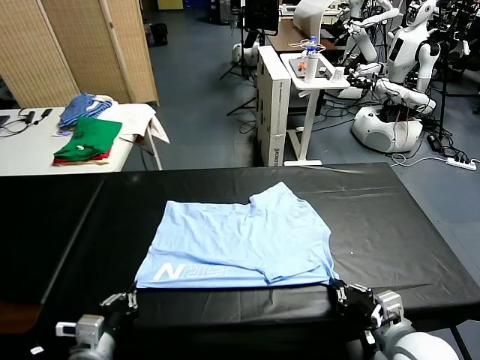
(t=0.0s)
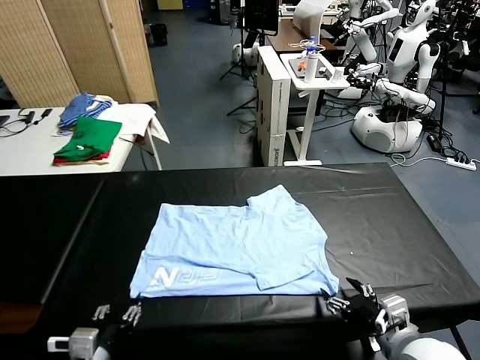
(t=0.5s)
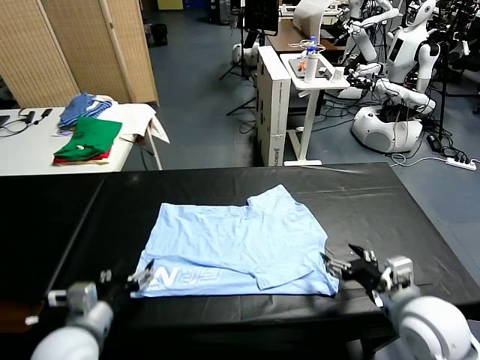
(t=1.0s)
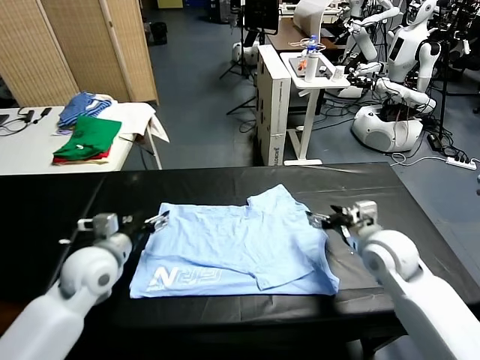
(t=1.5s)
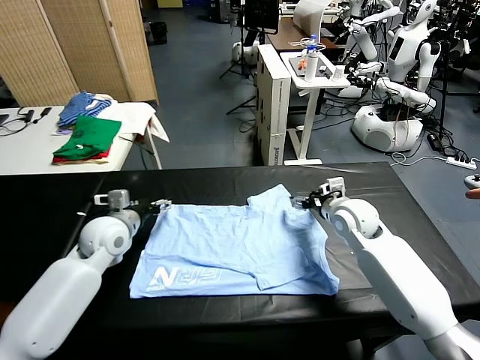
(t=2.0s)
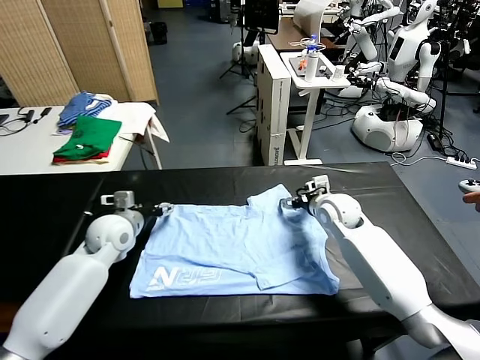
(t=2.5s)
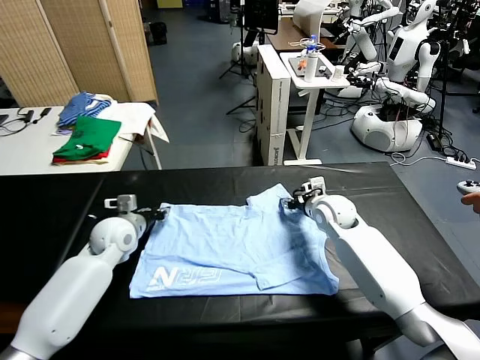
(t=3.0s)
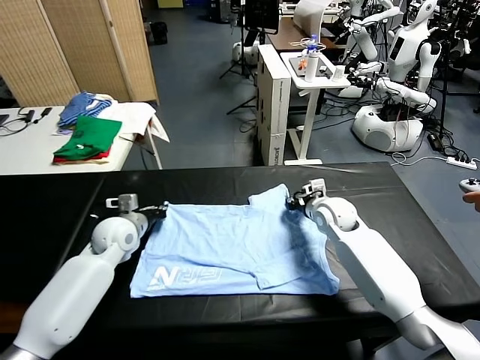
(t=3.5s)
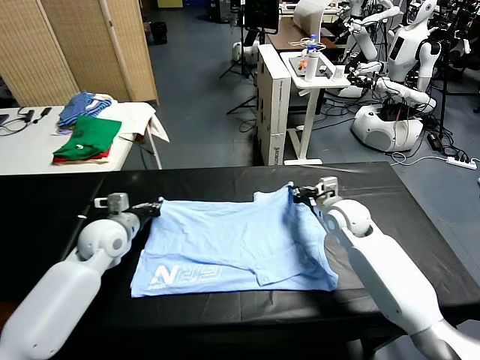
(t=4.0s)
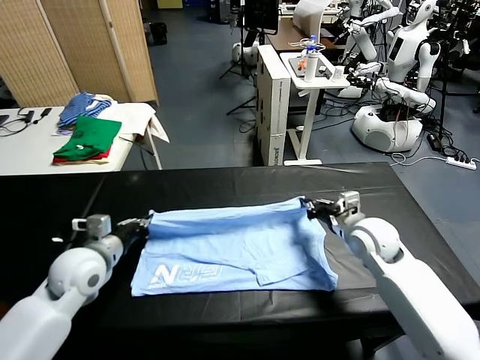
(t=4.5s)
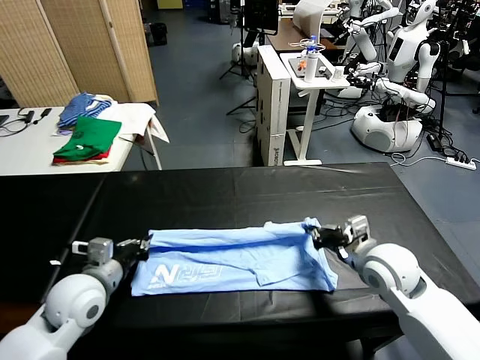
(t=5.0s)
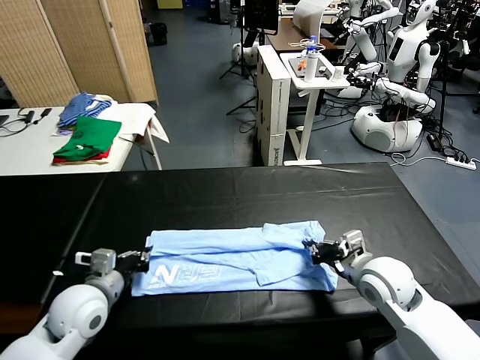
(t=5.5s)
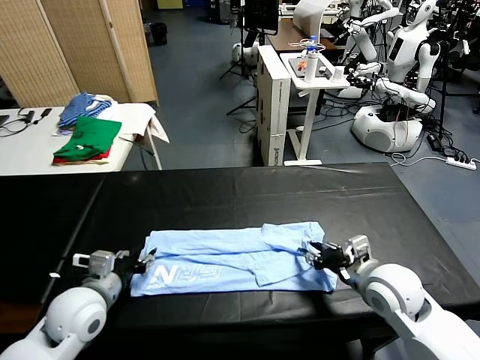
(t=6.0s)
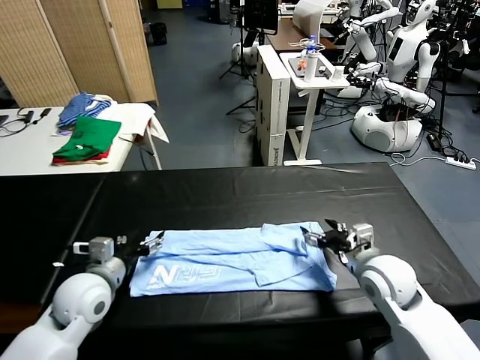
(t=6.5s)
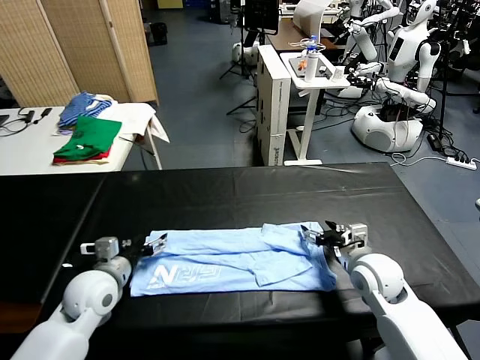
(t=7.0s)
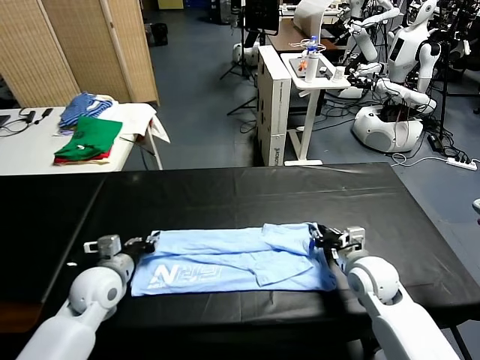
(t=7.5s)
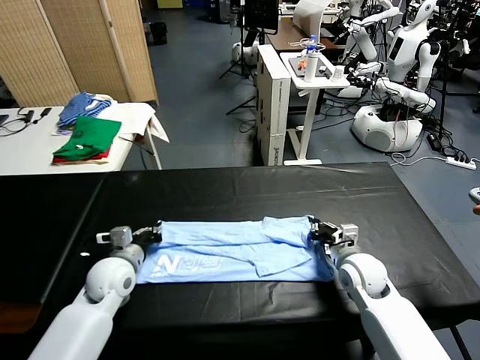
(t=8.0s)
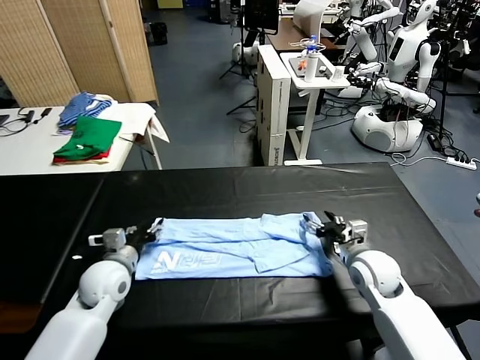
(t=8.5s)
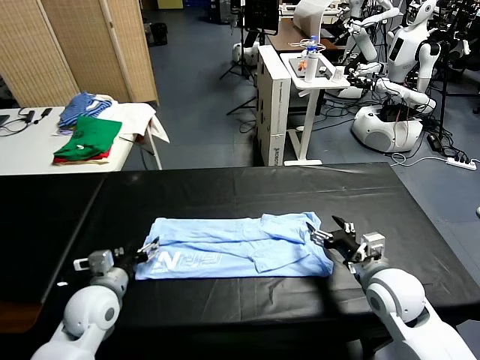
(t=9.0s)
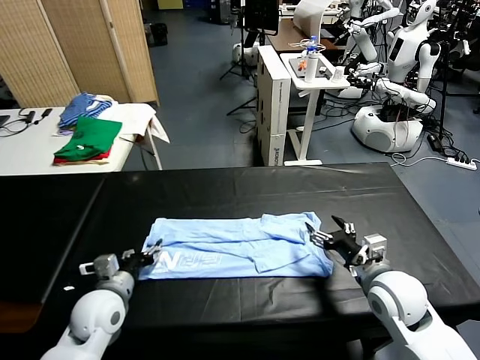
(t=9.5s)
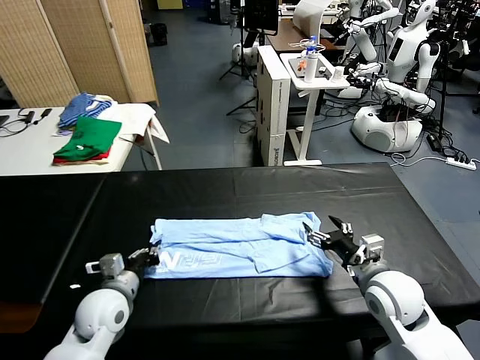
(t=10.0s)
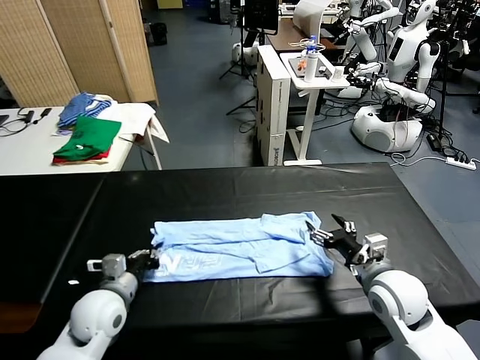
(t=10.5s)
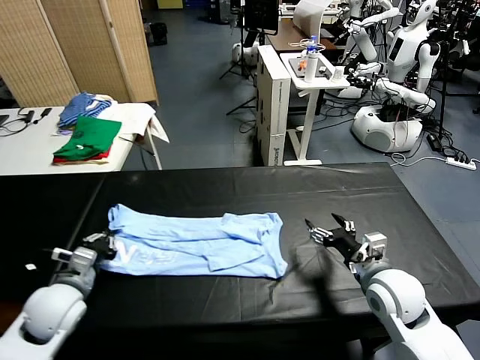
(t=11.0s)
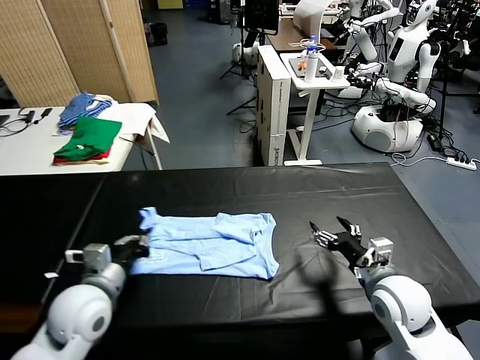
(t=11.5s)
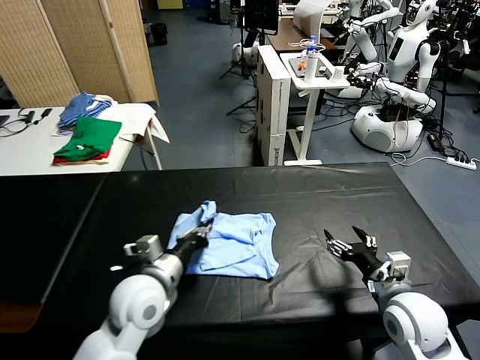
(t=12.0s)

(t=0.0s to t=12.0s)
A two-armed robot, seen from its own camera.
Task of the whole recording: fold and organize the clothes.
Step, t=0.5s - t=3.5s: use both grippers simultaneously to clamp the upper edge of the clothing fabric.
Step, t=4.0s - t=6.0s: use both grippers to drag the upper edge of the fabric backward and fold it over the lower edge.
Step, t=6.5s - t=10.5s: use the left gripper to clamp the left edge of the fabric.
t=0.0s - t=2.0s: Both grippers travel together forward, approximately 30 cm. The right gripper opens its fingers. The left gripper opens.
t=2.0s - t=4.0s: The left gripper closes its fingers; the right gripper closes up.
t=4.0s - t=6.0s: The two grippers go approximately 15 cm backward. The right gripper opens its fingers; the left gripper opens up.
t=6.0s - t=8.0s: The two grippers go roughly 10 cm forward and downward. The left gripper closes. The right gripper closes.
t=8.0s - t=10.0s: The right gripper shifts some 10 cm backward and upward, and opens up, while the left gripper goes approximately 5 cm backward, and opens, then closes again.
t=10.0s - t=12.0s: The left gripper is displaced to the right and upward by about 10 cm; the right gripper moves approximately 5 cm.

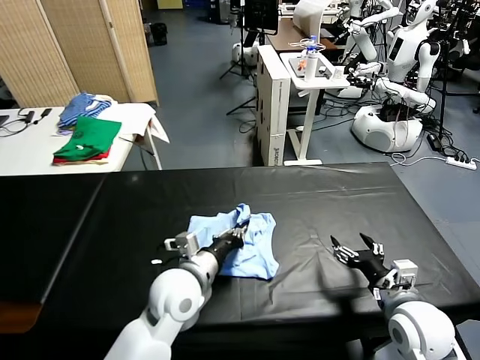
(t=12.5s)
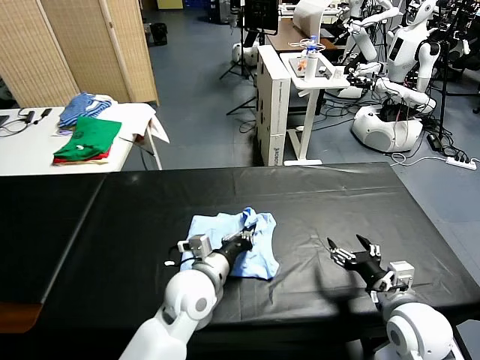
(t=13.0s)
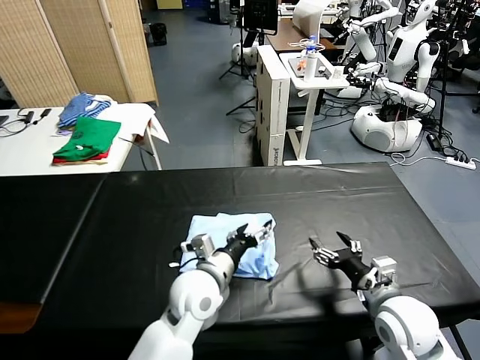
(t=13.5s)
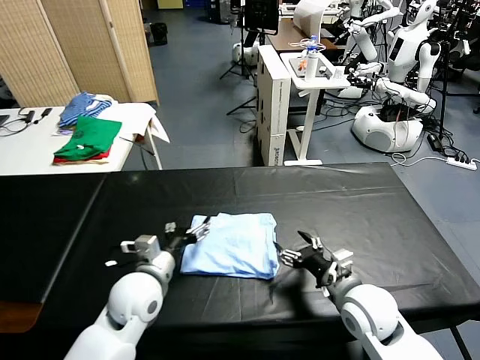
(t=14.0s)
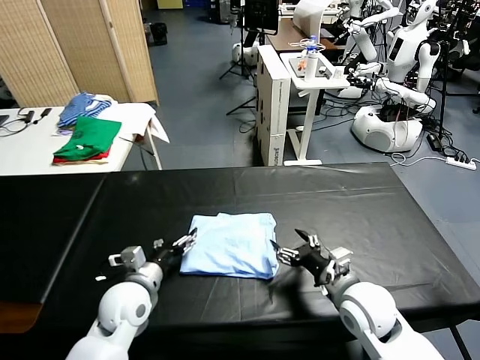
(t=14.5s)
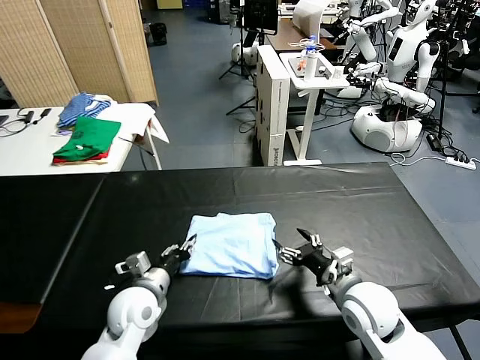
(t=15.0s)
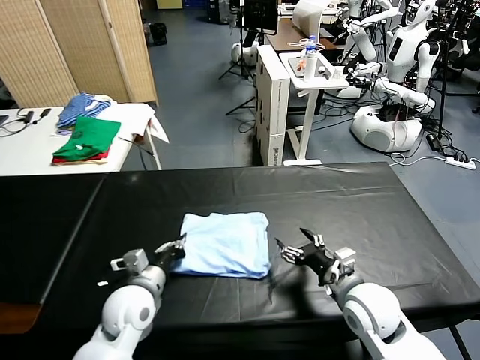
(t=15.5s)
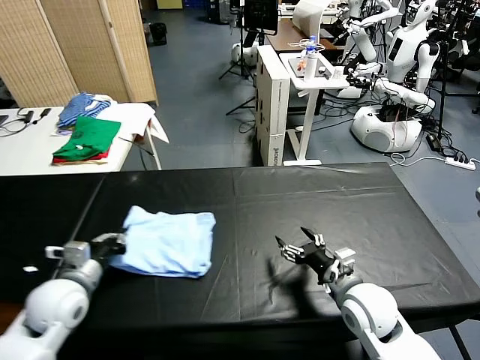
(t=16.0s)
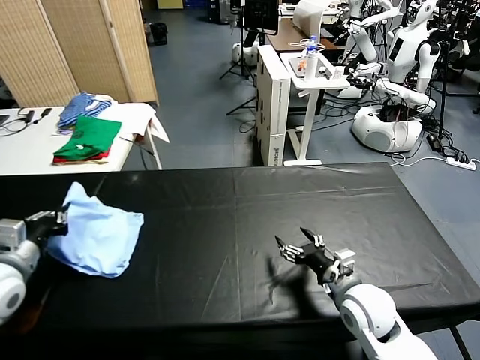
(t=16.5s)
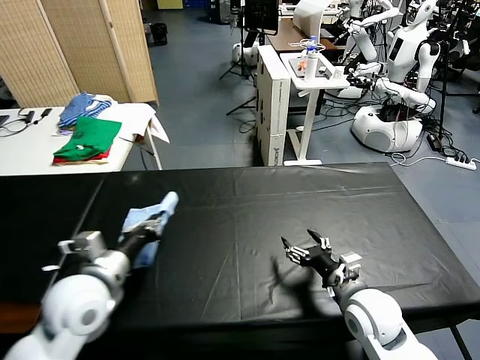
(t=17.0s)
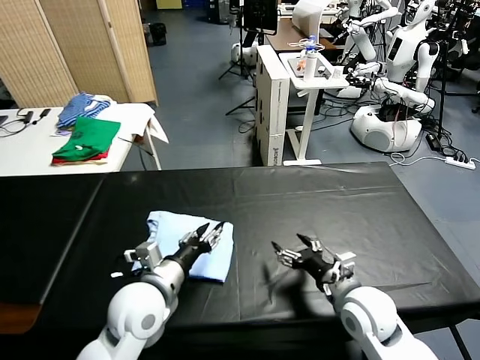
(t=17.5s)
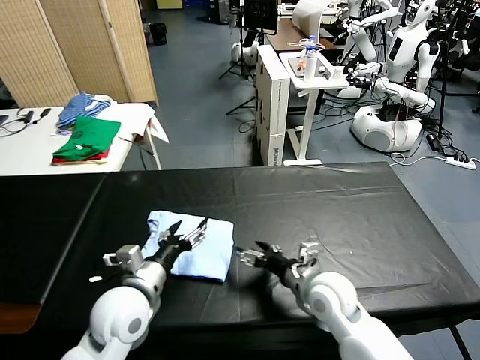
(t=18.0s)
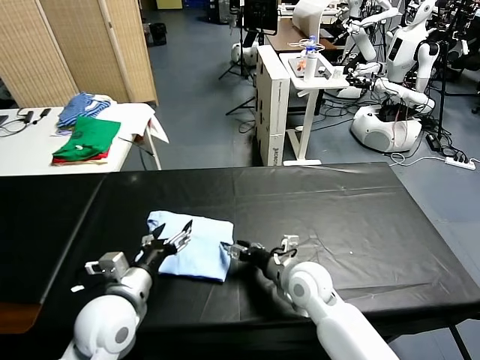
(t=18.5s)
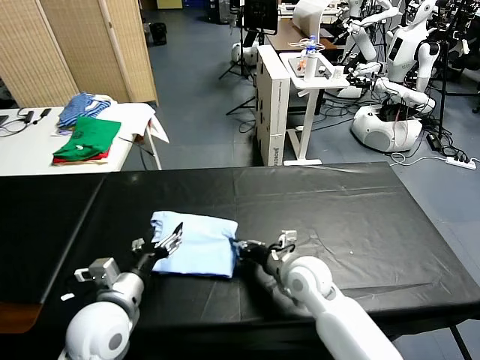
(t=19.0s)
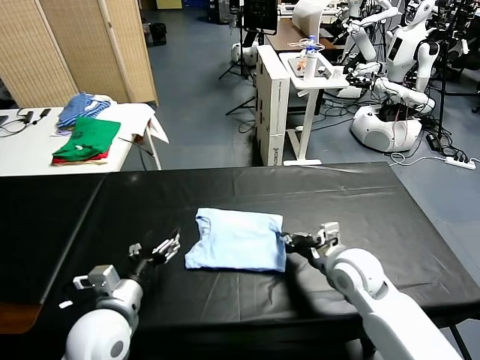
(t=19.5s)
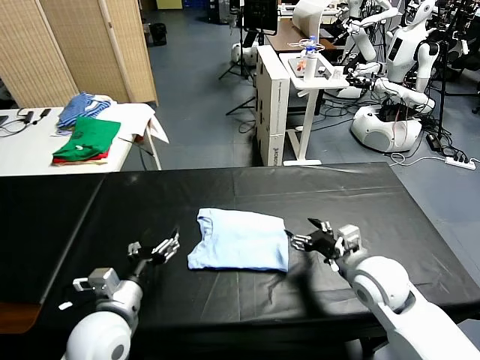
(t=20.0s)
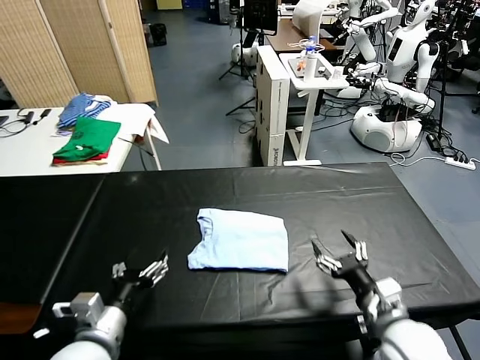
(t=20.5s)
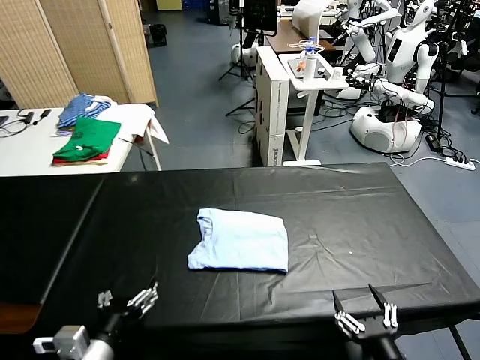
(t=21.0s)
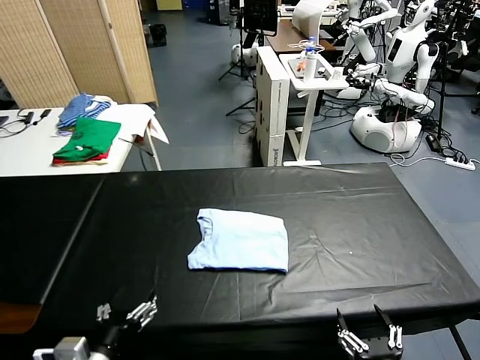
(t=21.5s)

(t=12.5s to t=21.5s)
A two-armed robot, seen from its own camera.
Task of the whole recording: fold and organize the clothes.
Step, t=14.0s - t=17.5s: Flip the folded clothes over with left gripper.
Step, t=18.0s - t=19.5s: Drag the clothes to the center of the table.
t=12.5s - t=14.5s: The right gripper travels to the left by some 10 cm. Meanwhile the left gripper heads to the left and downward, covering about 15 cm, and opens.
t=14.5s - t=17.0s: The left gripper is displaced upward by roughly 10 cm, reaches some 20 cm to the left, then returns, and closes its fingers.
t=17.0s - t=19.5s: The right gripper goes about 5 cm forward, goes to the left and returns, roughly 10 cm each way, and closes its fingers. Meanwhile the left gripper is displaced downward by some 5 cm, and opens up.
t=19.5s - t=21.5s: The right gripper goes some 30 cm backward, and opens. Meanwhile the left gripper goes roughly 10 cm backward.

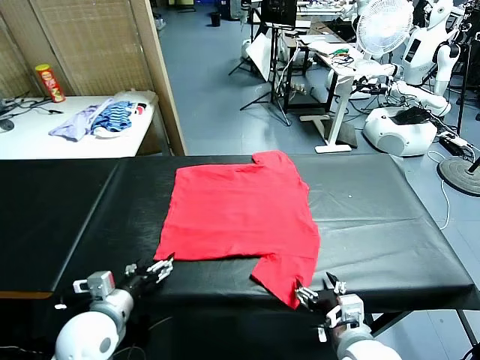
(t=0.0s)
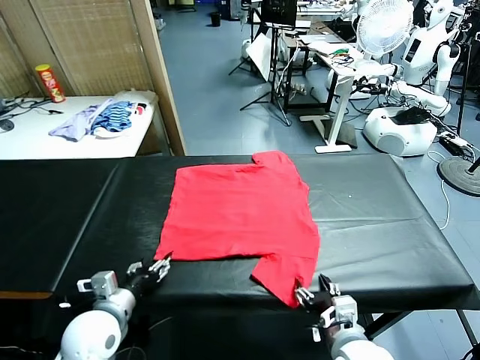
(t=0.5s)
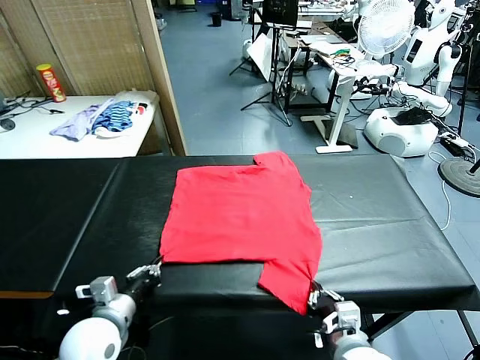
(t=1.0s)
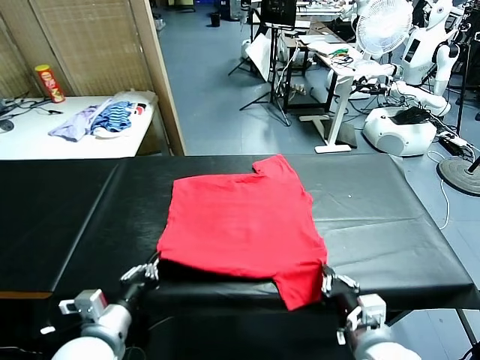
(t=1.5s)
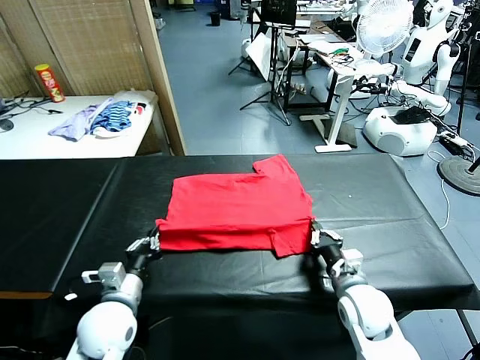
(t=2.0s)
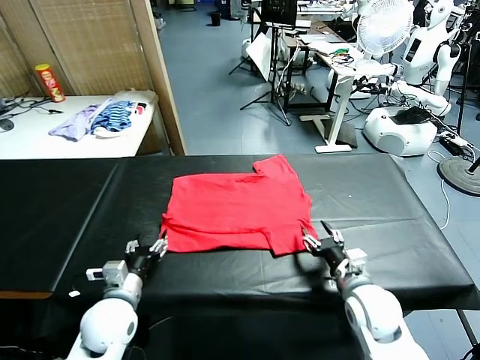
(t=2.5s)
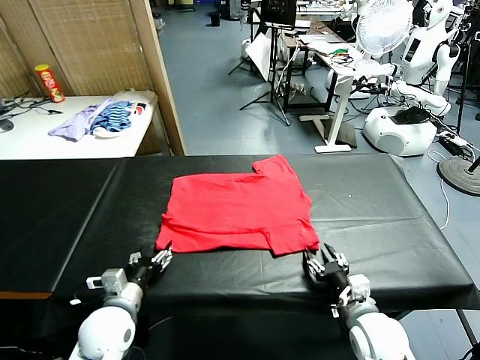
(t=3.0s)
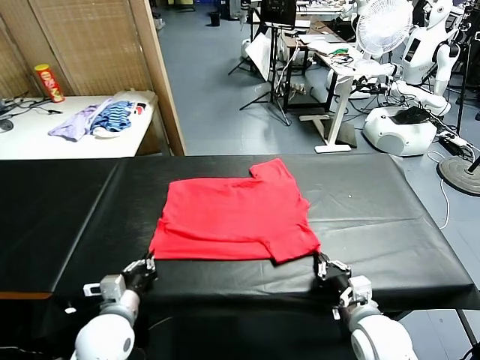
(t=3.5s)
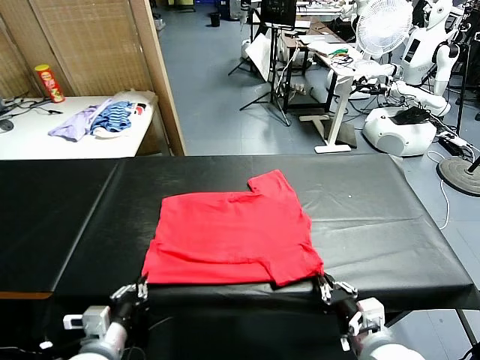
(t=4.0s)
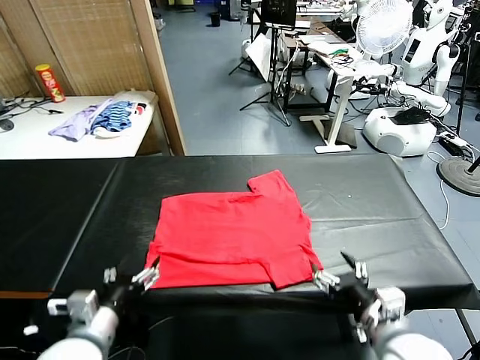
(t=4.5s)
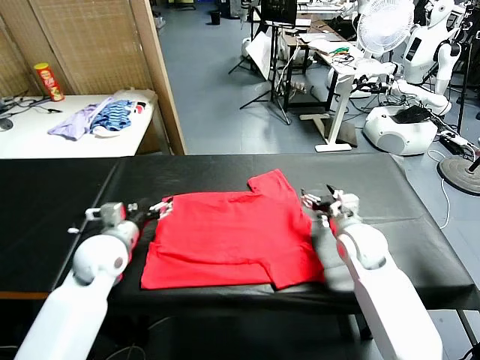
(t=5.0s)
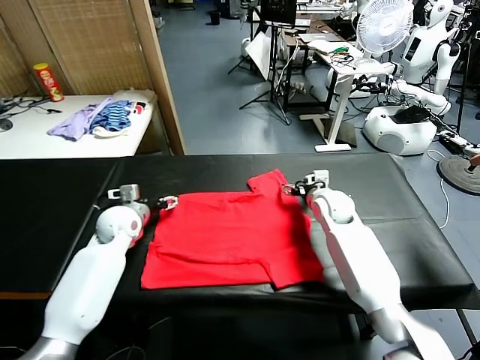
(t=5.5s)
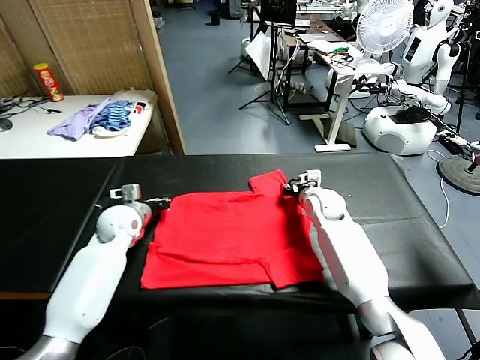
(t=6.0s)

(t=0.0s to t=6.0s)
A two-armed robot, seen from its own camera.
Task of the whole recording: fold and organize the clothes.
Step, t=0.0s - t=1.0s: use both grippers simultaneously to clamp the lower edge of the clothing fabric.
Step, t=1.5s - t=2.5s: use both grippers to drag the lower edge of the fabric forward and fold it over the upper edge.
Step, t=3.0s - t=4.0s: Drag the clothes downward with both gripper.
t=2.0s - t=4.0s: The right gripper heads backward and upward, covering approximately 20 cm, and opens its fingers. The left gripper moves backward, some 10 cm, and opens and closes again.
t=4.0s - t=6.0s: The grippers both shift forward by some 35 cm. The left gripper opens and closes again. The right gripper closes.
